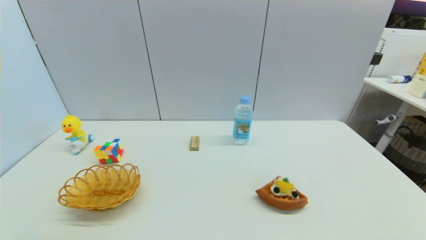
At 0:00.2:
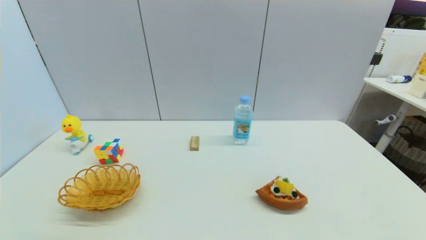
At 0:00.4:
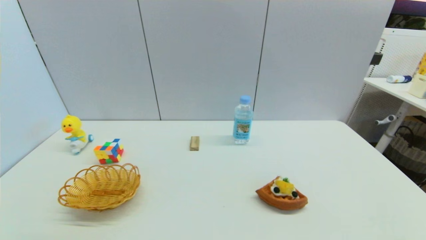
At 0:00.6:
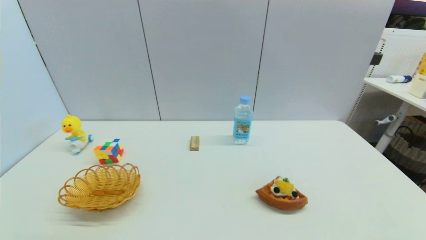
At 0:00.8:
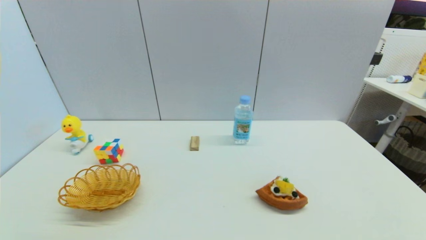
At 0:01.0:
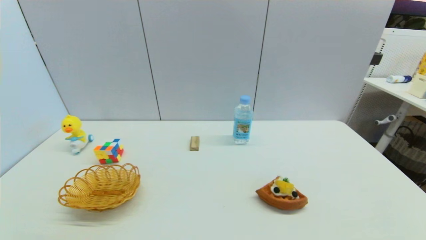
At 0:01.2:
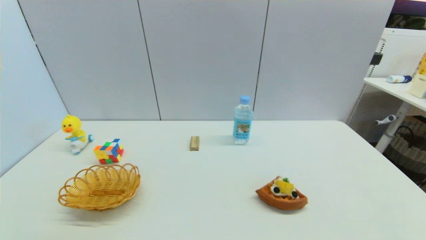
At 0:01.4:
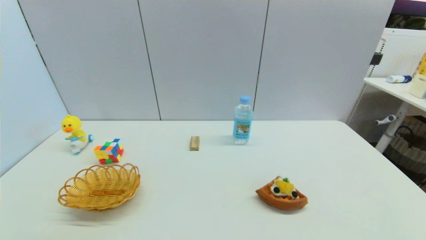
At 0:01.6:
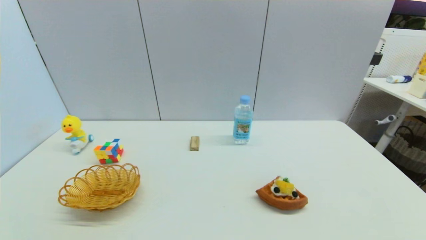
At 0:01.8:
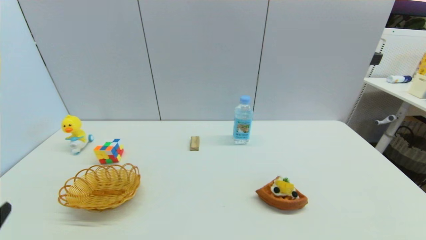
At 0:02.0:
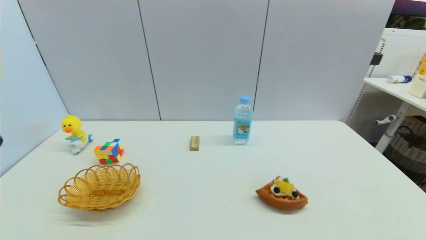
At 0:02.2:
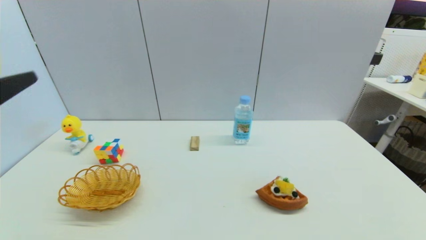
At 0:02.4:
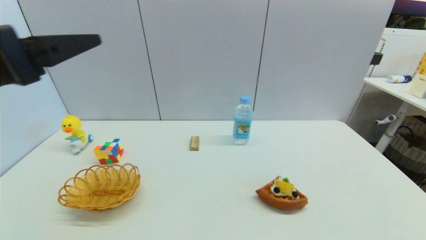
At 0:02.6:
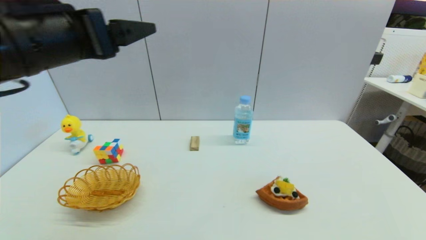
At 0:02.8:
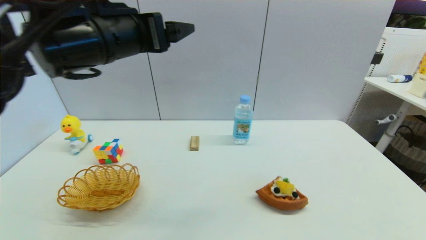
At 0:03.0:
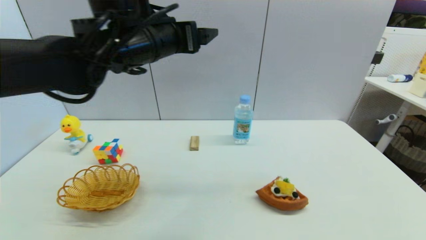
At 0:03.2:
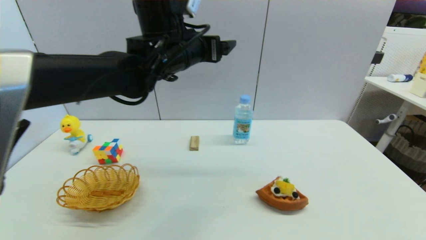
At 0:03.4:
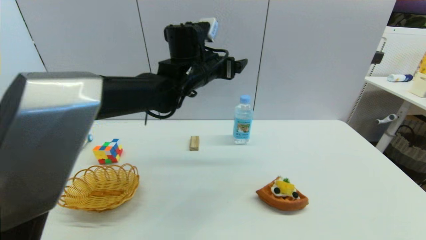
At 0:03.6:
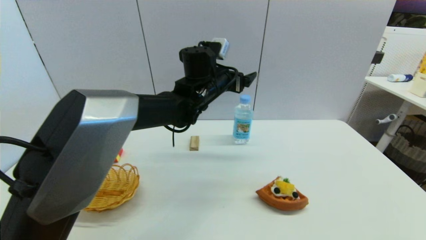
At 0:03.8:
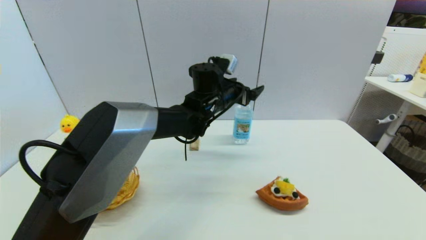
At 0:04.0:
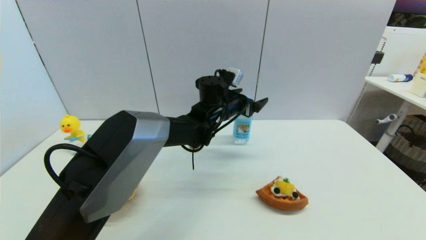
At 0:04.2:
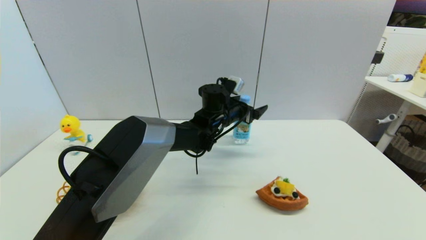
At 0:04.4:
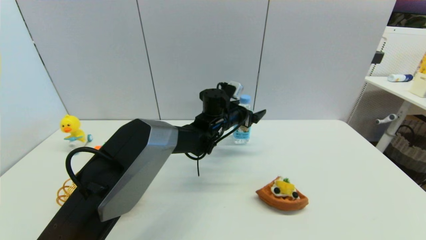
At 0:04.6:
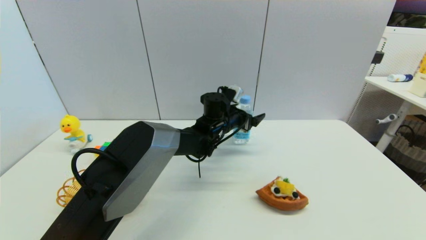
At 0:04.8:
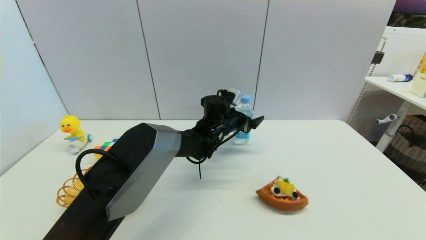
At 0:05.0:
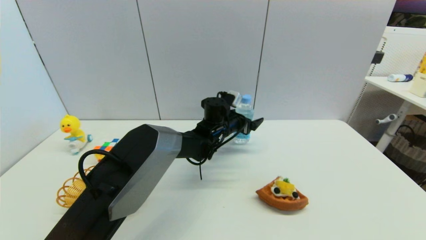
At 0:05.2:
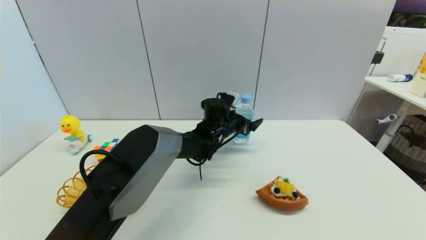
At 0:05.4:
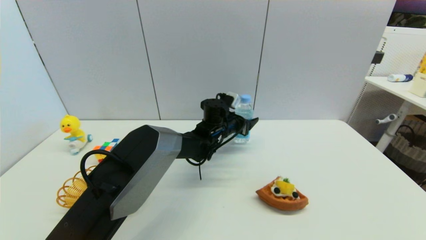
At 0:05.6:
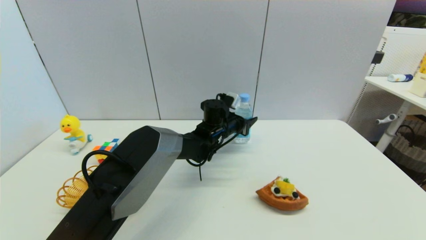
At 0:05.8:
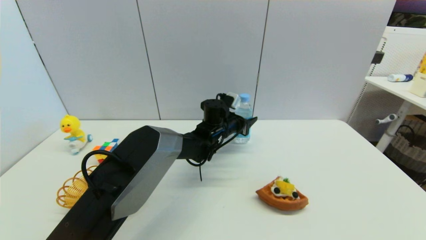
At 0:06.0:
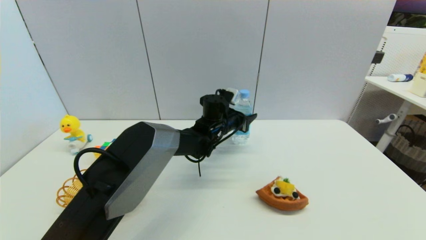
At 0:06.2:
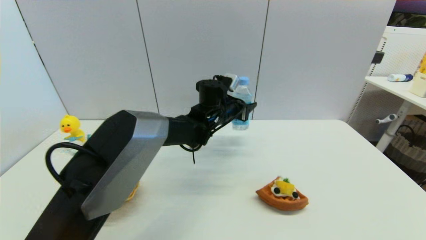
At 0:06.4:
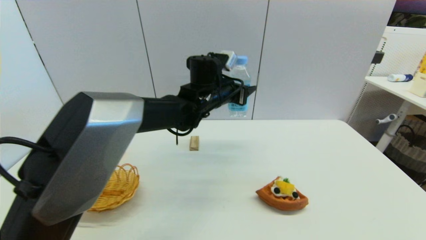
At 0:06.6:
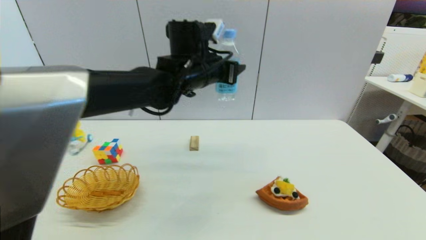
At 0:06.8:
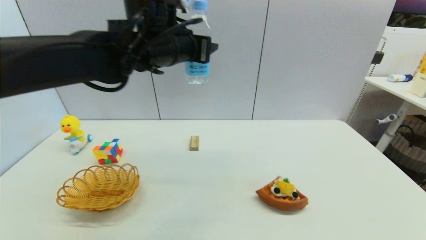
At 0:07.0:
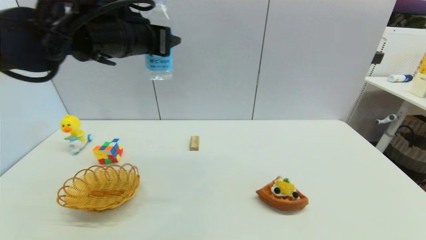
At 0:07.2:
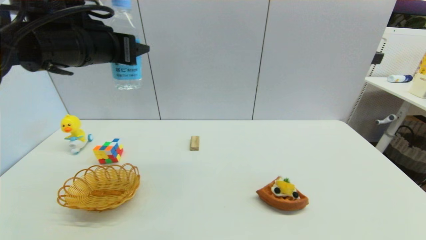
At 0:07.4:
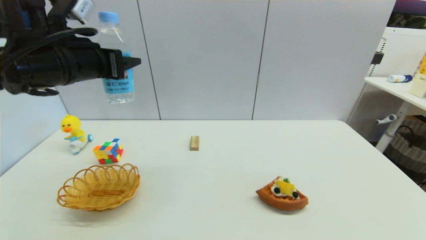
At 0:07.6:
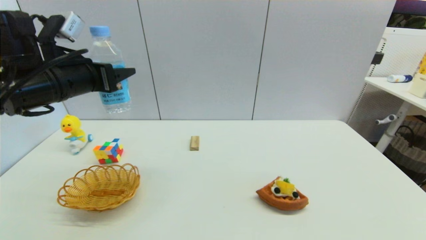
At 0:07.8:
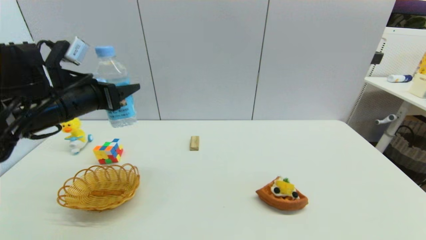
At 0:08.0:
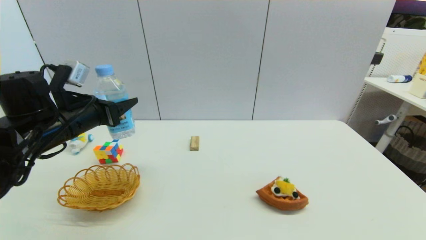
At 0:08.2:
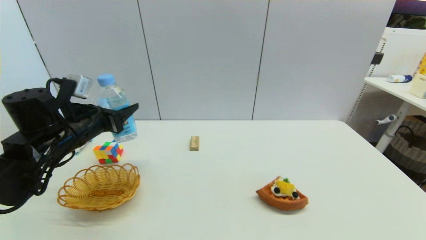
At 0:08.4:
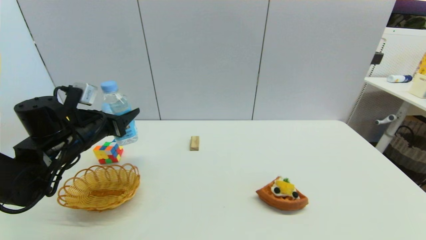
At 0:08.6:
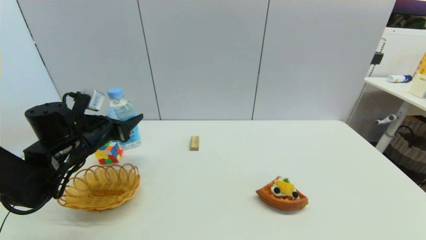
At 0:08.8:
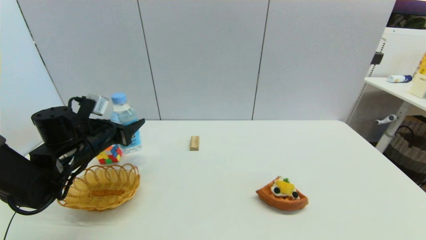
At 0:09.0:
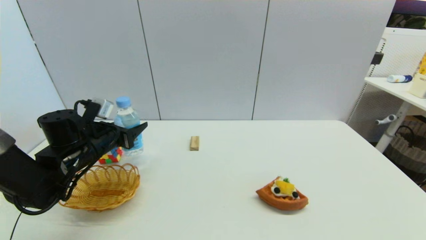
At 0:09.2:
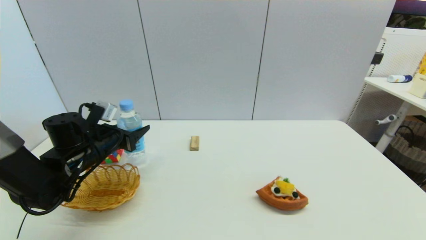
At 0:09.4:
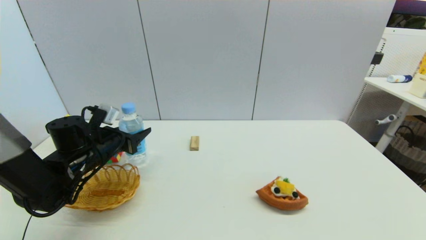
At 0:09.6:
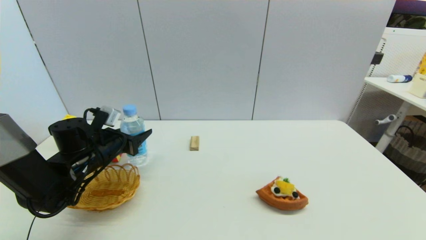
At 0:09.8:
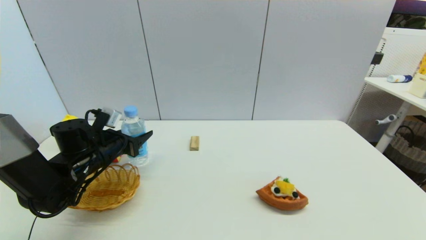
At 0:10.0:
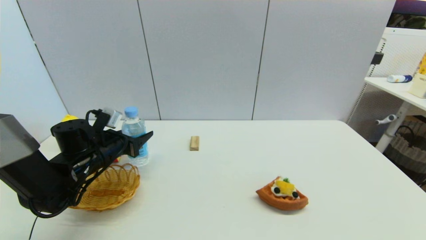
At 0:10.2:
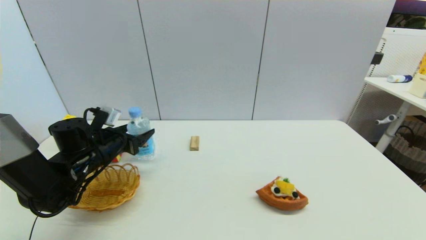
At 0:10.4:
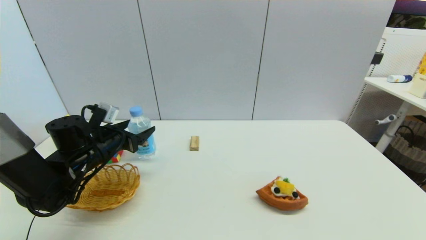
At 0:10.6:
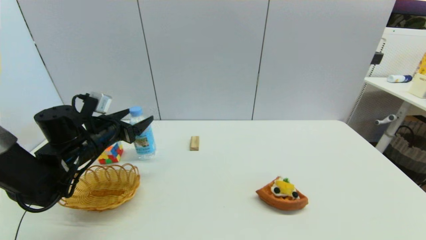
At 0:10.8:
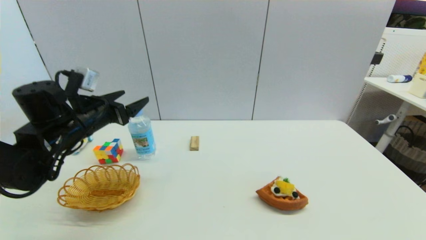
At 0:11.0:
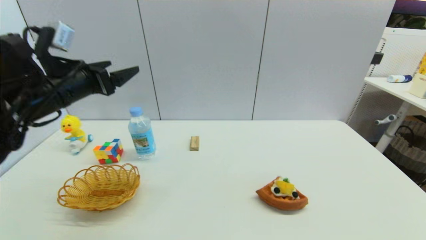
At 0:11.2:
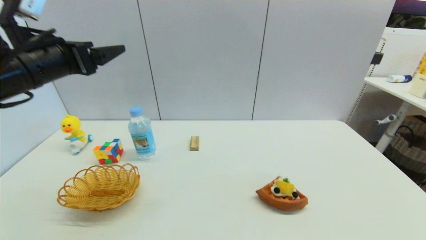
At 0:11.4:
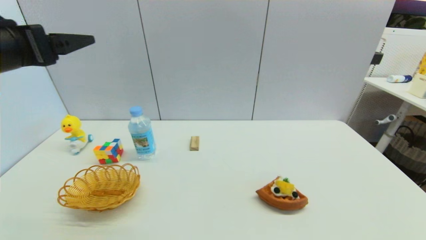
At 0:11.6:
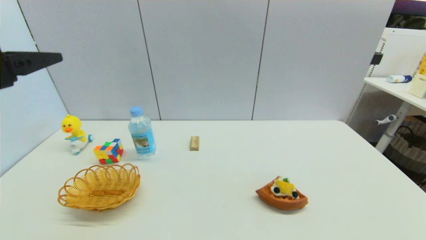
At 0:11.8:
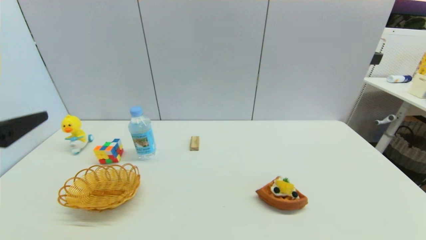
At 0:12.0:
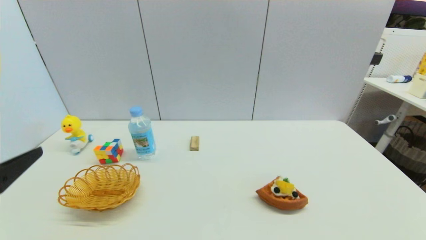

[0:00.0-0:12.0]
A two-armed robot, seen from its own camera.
Step, 0:01.6 to 0:05.6: Grasp the soda water with left gripper.
Step, 0:06.0 to 0:10.4: Place the soda water on the table with left gripper.
0:01.6 to 0:03.0: The left gripper shifts about 50 cm forward, upward and to the right.
0:03.0 to 0:04.4: The left gripper heads downward, to the right and forward, covering about 30 cm.
0:04.4 to 0:06.0: The left gripper closes up.
0:06.0 to 0:07.6: The left gripper travels to the left, upward and backward by some 35 cm.
0:07.6 to 0:09.0: The left gripper moves downward, about 15 cm.
0:09.0 to 0:10.4: The left gripper opens its fingers.
0:10.4 to 0:12.0: The left gripper heads backward and upward, covering approximately 30 cm, and opens its fingers.

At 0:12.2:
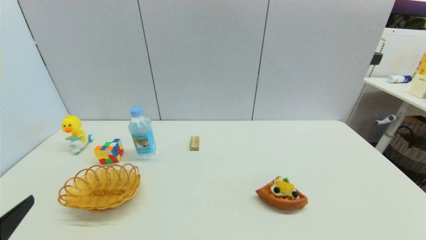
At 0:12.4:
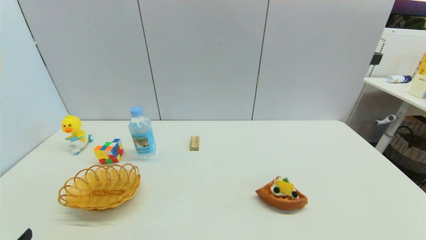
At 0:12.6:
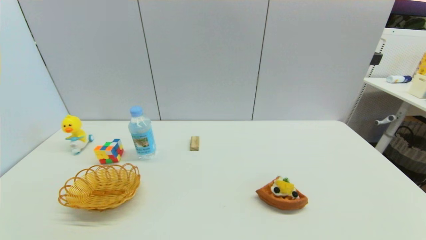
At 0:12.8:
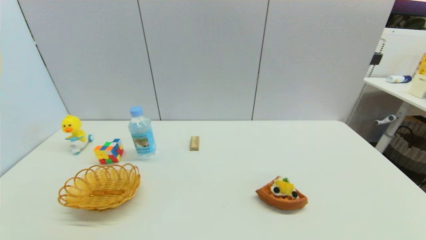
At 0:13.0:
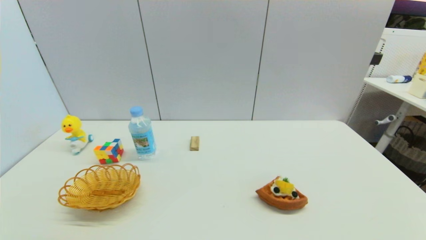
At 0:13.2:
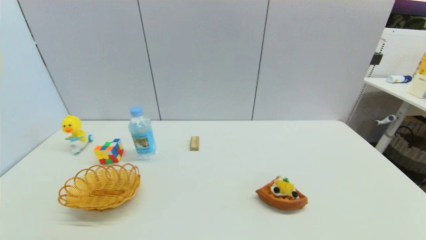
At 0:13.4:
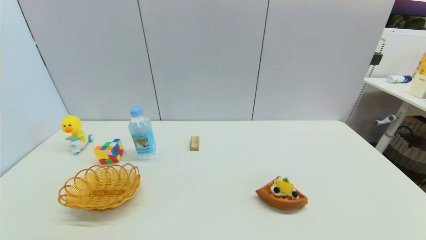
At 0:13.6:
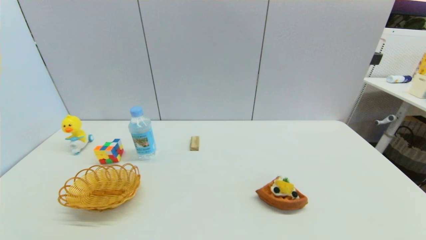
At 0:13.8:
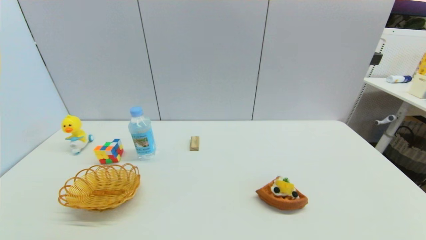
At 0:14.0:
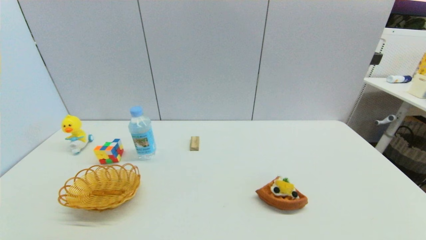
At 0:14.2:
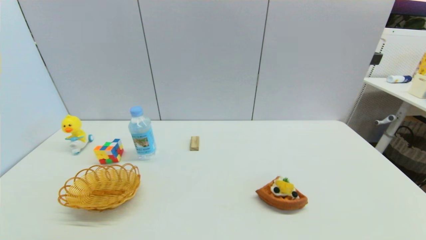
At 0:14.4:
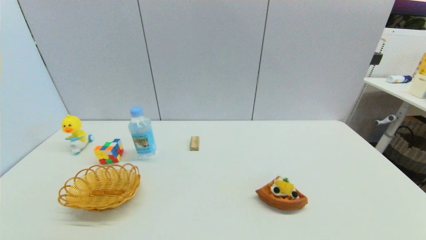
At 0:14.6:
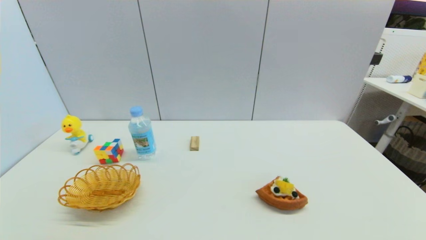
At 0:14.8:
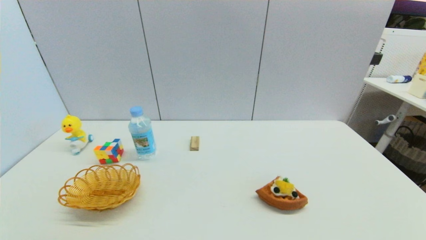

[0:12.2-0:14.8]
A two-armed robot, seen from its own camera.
0:12.2 to 0:13.4: The left gripper moves downward, approximately 10 cm.
0:13.4 to 0:14.8: Both grippers stay put.
